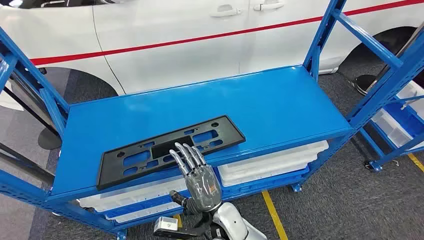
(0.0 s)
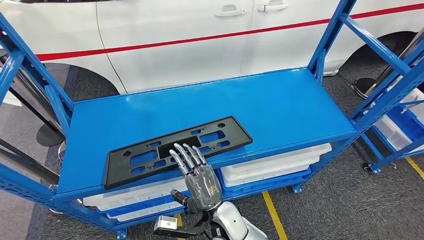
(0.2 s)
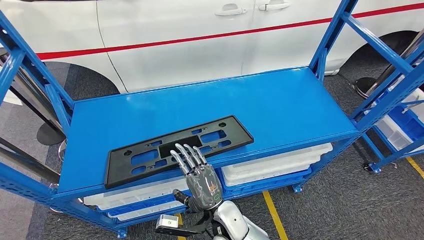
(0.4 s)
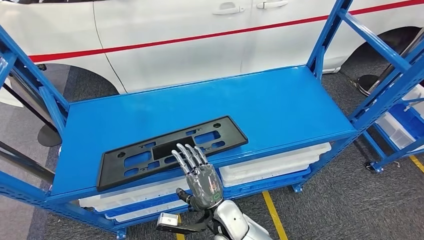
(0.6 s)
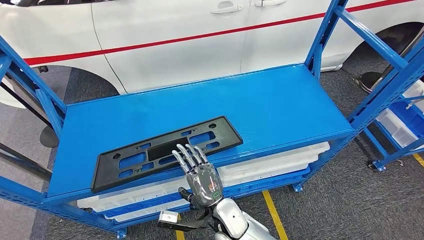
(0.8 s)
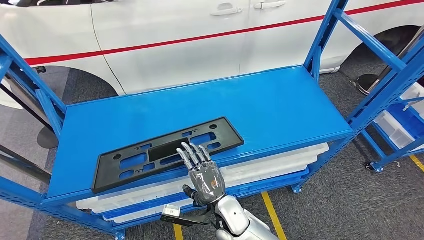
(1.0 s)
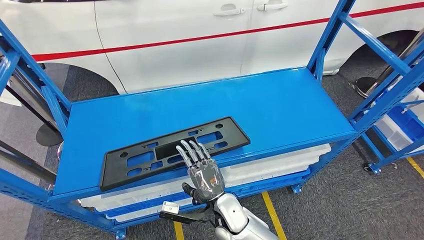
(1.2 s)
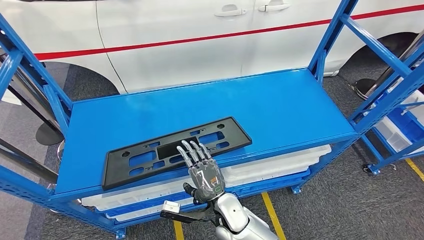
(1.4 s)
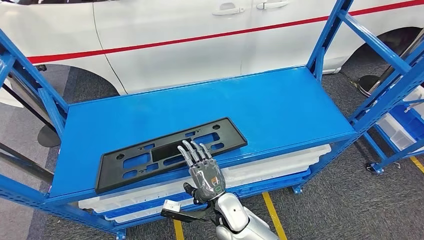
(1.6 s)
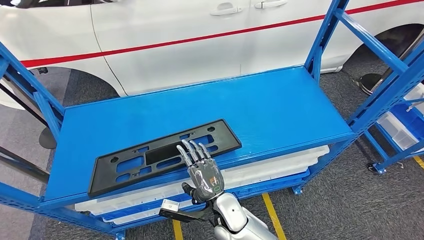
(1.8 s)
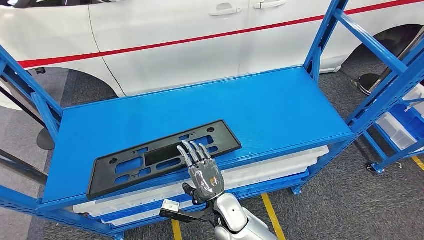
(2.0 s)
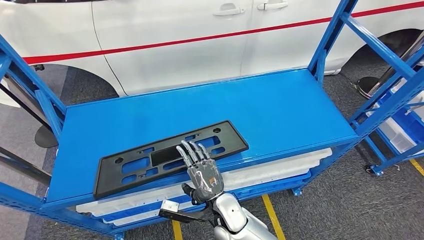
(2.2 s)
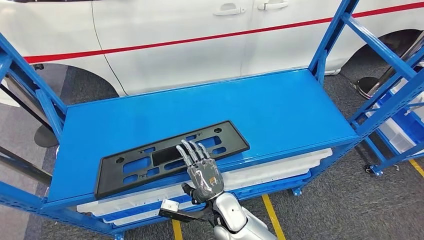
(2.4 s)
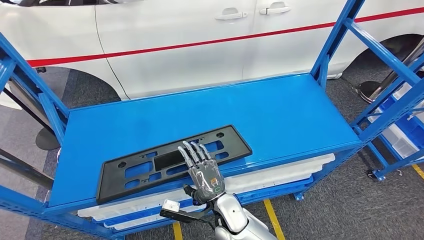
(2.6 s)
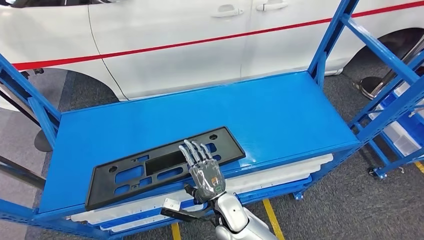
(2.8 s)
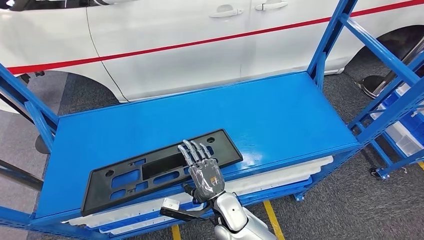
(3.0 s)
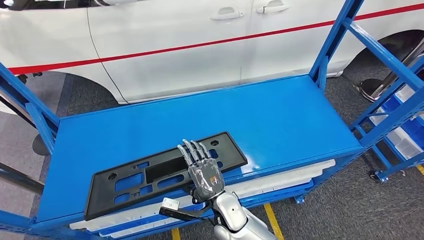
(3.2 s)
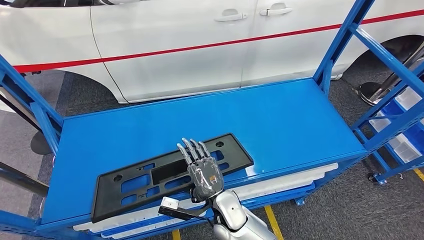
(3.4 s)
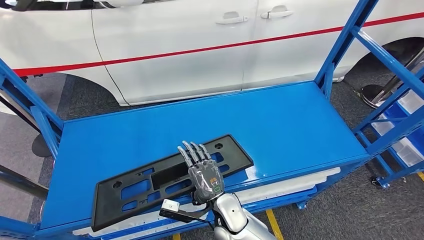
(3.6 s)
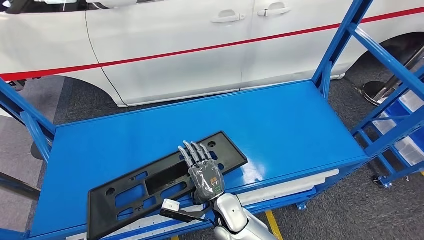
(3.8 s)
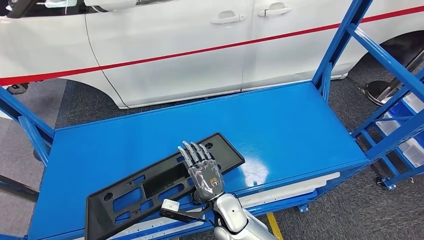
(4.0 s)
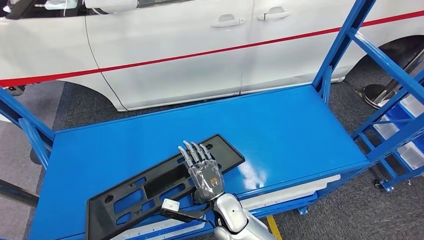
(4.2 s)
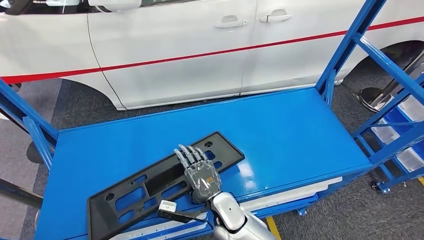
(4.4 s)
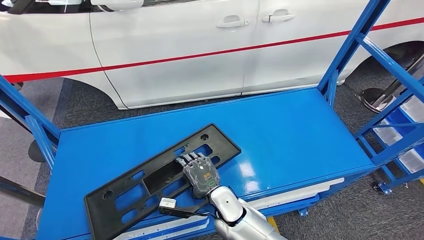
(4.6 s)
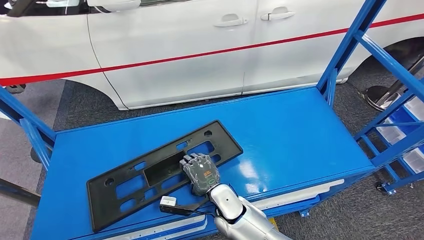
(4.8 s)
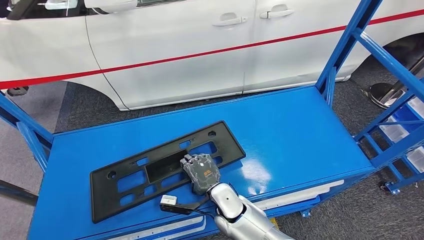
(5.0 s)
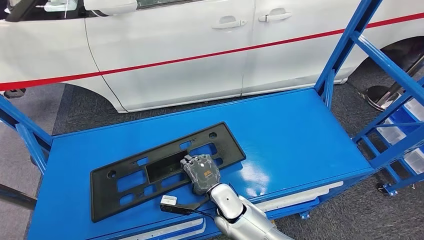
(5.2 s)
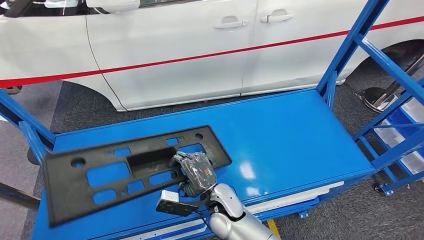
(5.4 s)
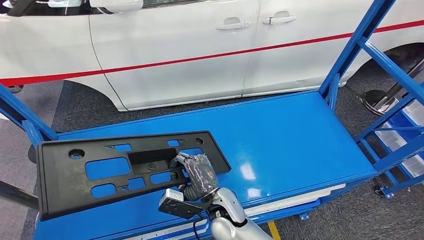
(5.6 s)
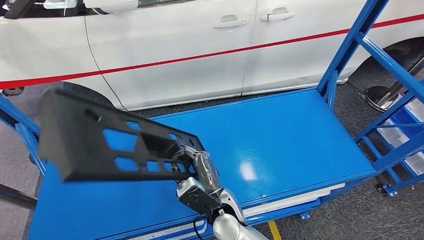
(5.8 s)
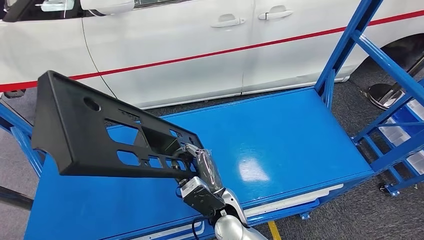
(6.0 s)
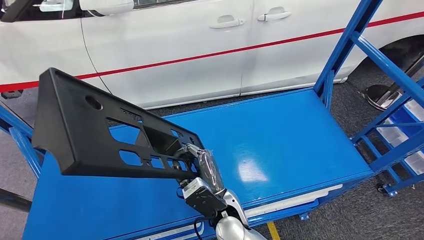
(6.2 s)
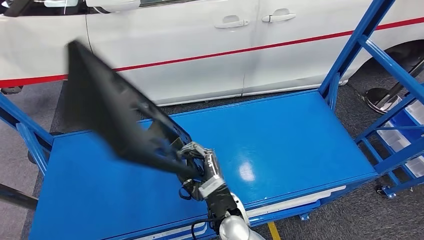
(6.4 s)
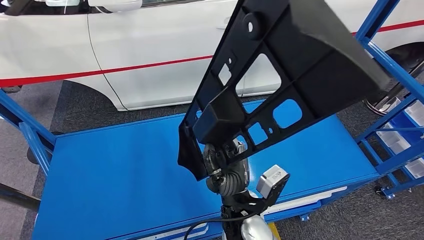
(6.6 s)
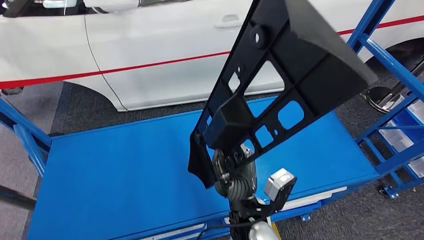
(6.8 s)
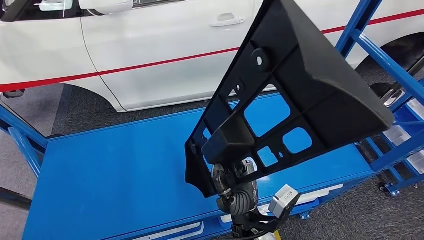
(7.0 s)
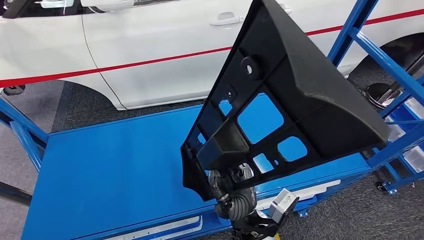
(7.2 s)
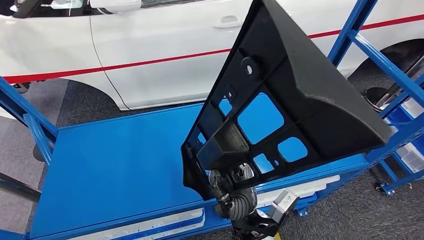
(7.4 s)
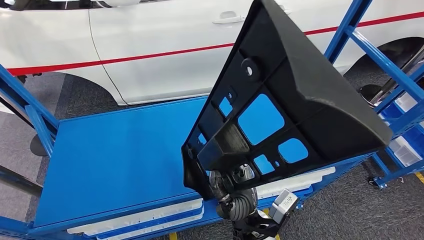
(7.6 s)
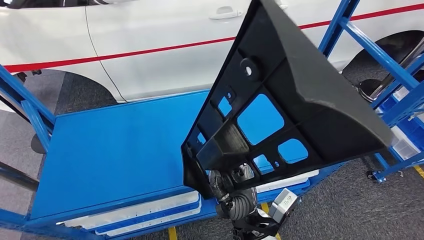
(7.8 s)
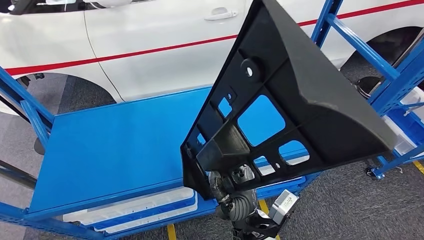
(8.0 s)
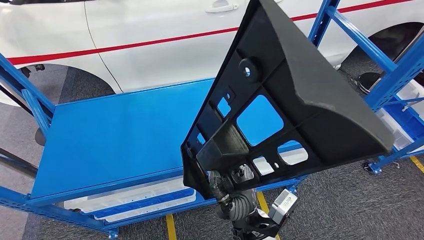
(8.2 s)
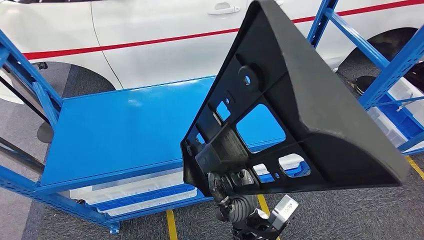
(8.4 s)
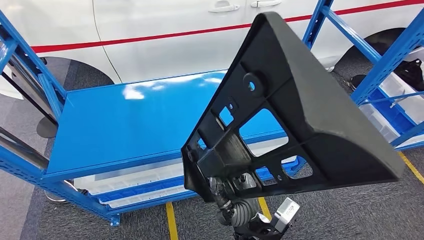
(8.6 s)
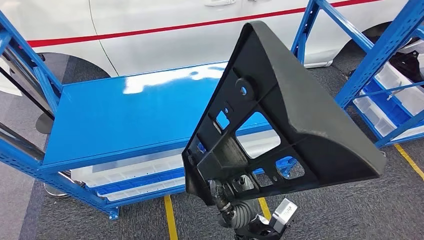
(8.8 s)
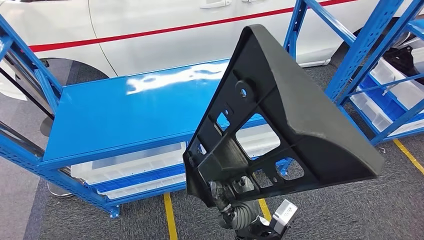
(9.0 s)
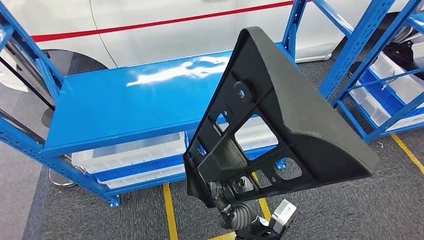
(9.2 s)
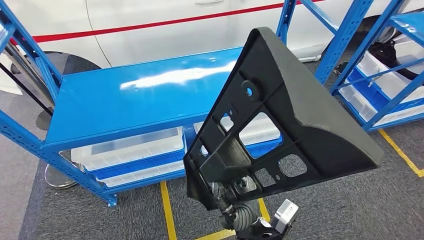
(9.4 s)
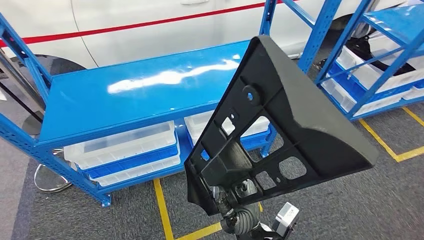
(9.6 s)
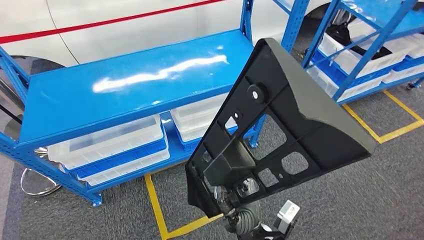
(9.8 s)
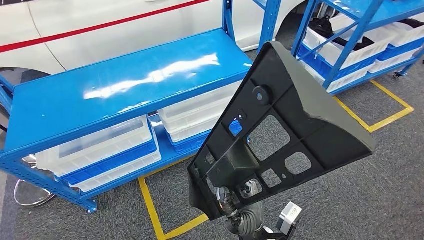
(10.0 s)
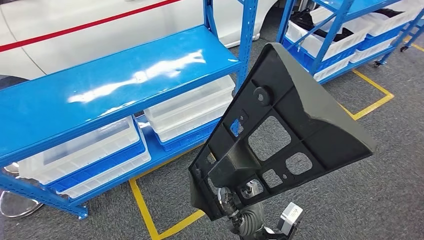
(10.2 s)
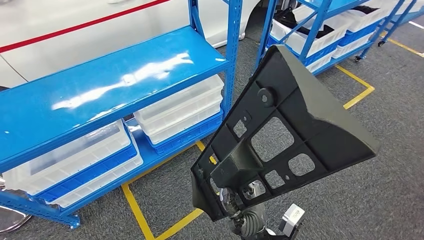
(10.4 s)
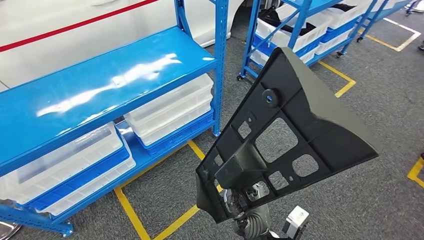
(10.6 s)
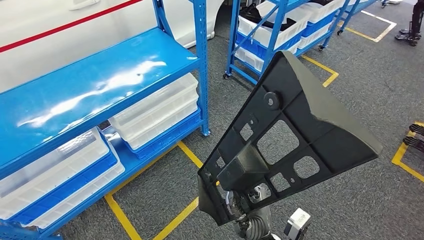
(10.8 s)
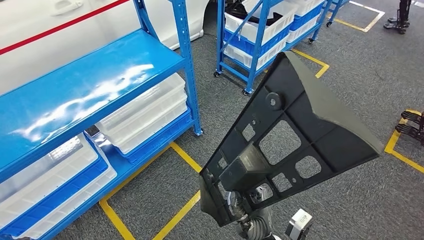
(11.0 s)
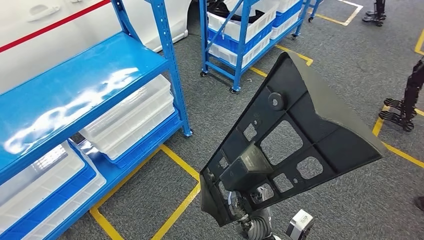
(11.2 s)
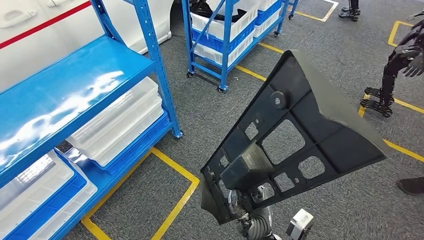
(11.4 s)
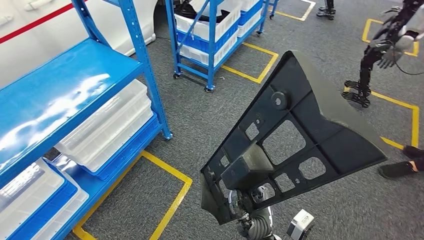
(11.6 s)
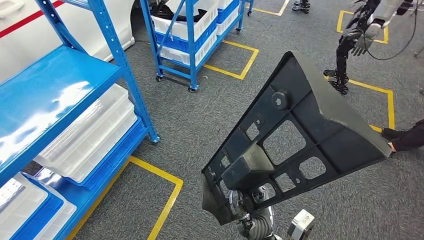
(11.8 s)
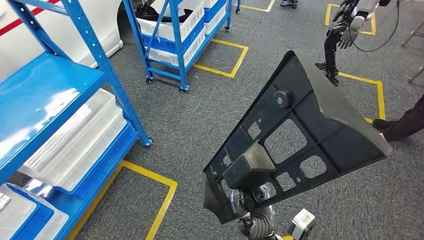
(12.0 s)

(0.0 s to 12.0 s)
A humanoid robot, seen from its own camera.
Step, 0.0 s - 5.8 s: Pick up the large material from the shelf.

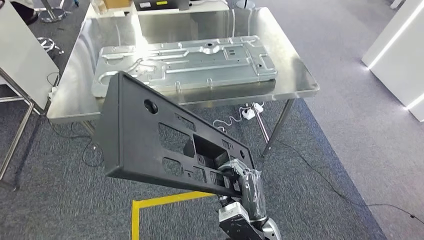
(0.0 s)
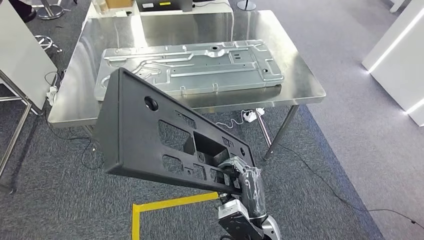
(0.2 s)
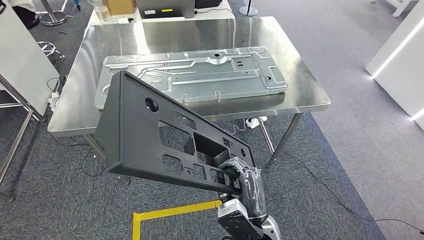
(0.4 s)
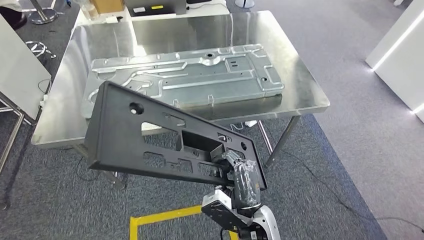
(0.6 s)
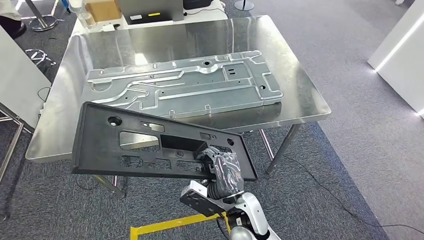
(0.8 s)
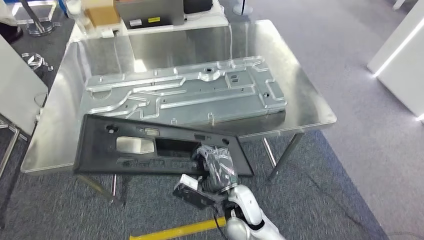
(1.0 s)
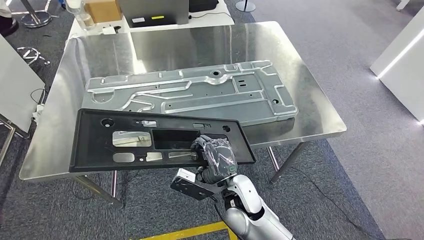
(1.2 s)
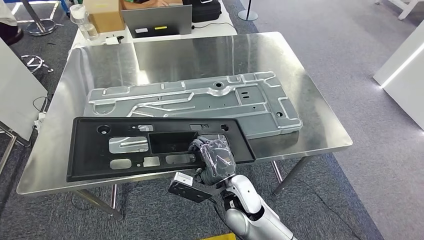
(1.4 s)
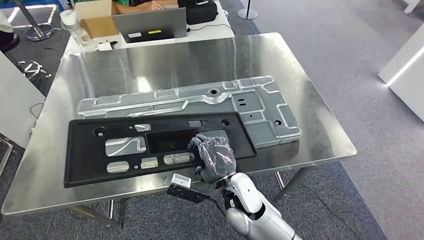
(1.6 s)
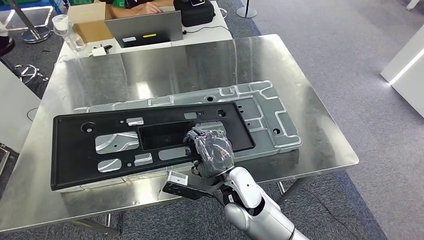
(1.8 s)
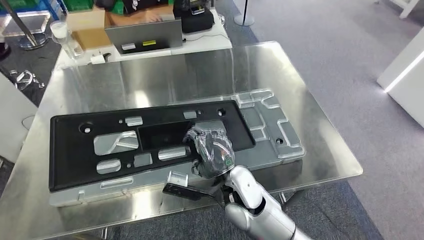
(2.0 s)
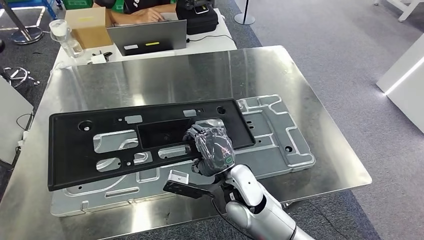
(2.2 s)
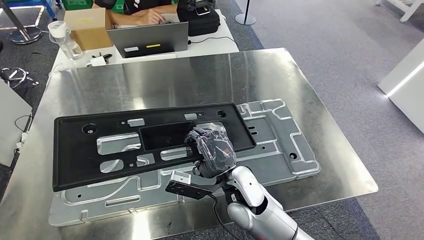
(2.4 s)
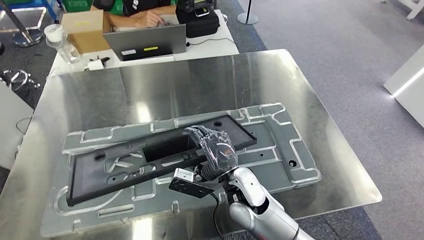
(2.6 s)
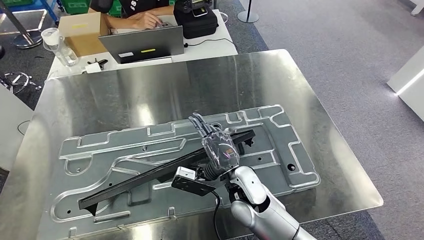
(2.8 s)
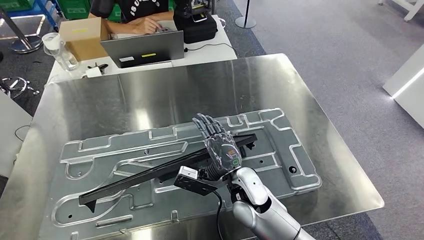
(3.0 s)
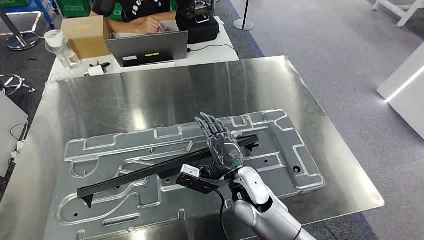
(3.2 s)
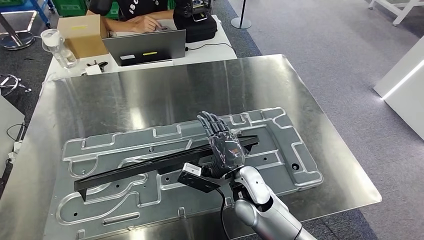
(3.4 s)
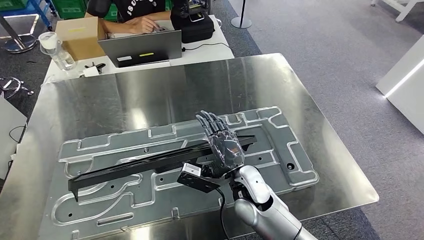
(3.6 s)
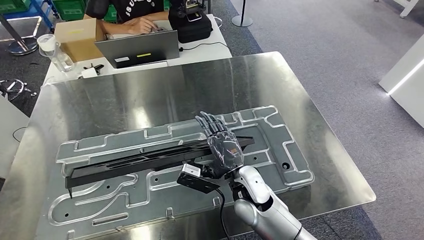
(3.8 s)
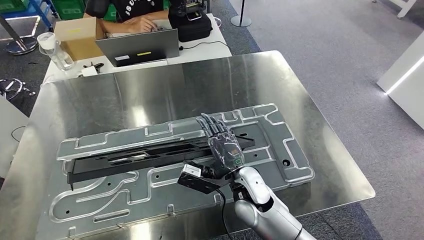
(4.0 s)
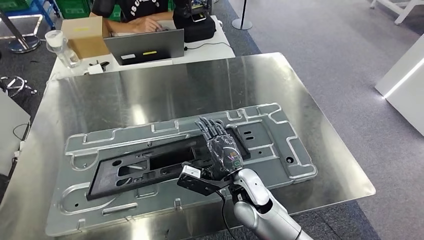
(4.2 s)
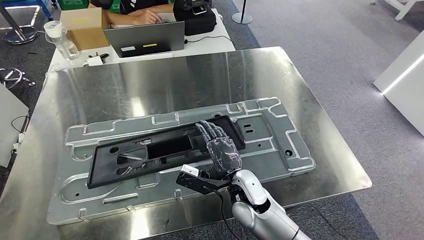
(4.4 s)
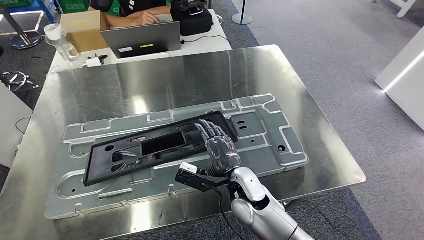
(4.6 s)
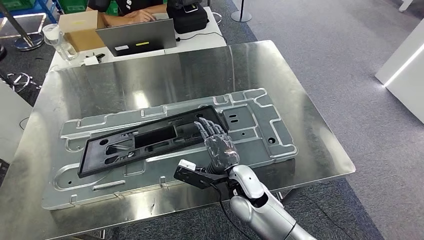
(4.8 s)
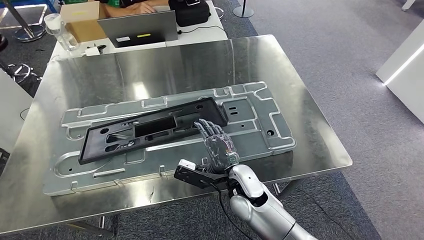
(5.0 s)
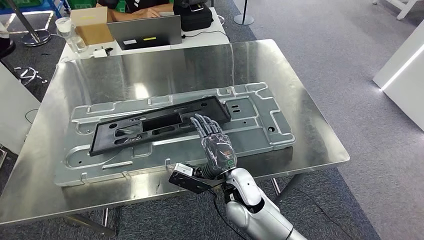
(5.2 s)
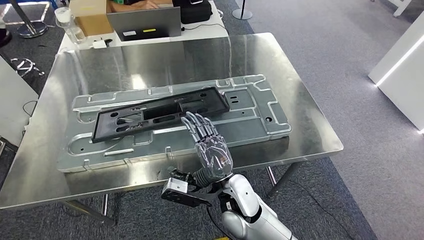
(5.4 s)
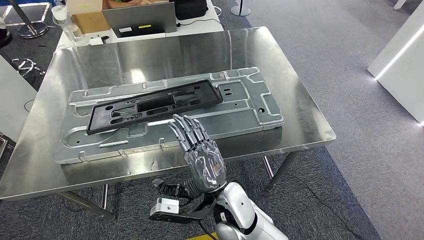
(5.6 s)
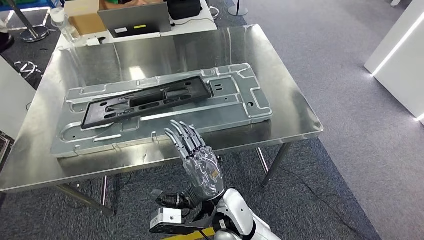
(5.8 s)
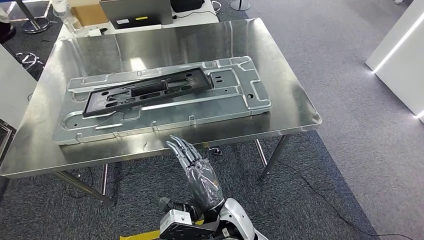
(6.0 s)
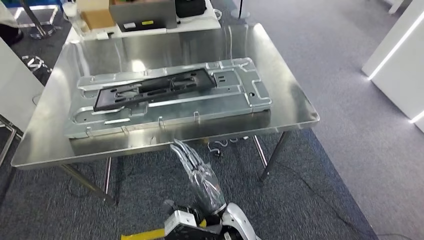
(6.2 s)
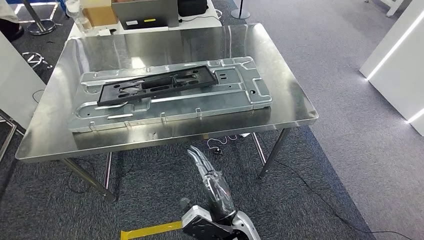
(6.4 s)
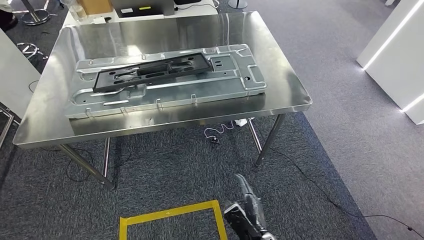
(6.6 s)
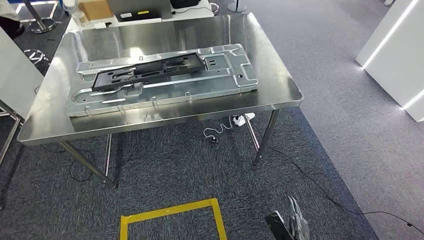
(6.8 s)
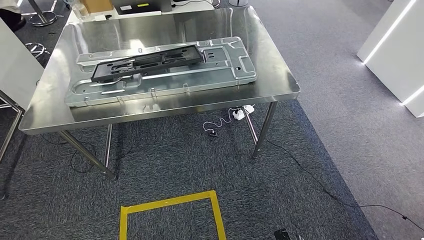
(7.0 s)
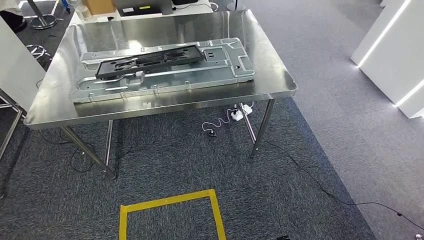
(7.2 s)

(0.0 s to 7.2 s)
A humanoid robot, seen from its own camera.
Step, 2.6 s - 7.2 s: Insert the large material into the corresponding slot on the workbench.
